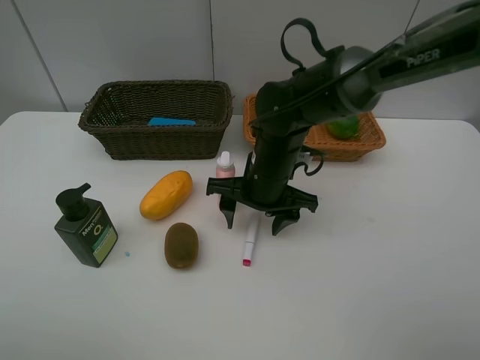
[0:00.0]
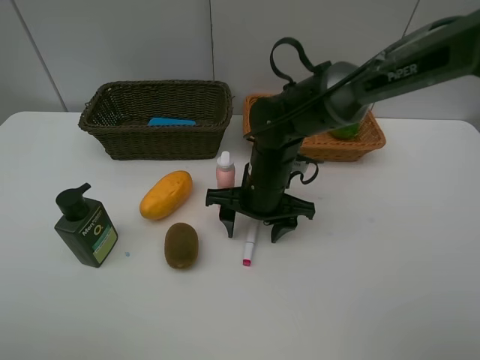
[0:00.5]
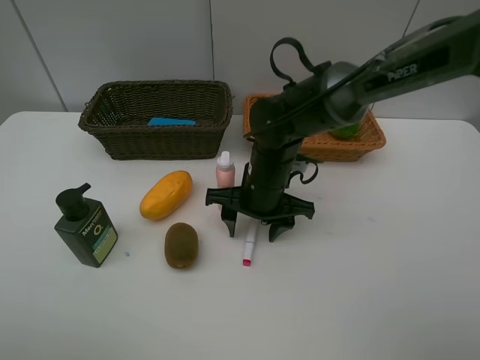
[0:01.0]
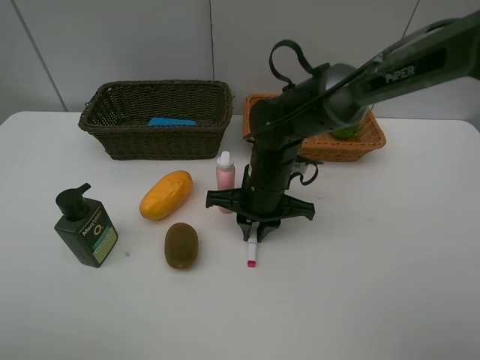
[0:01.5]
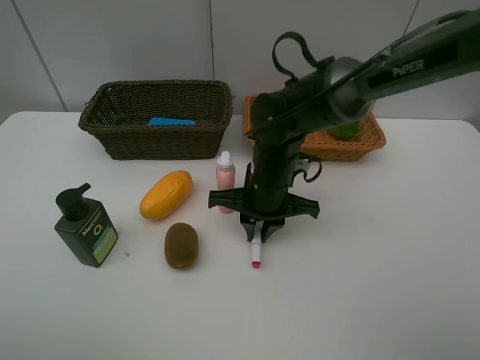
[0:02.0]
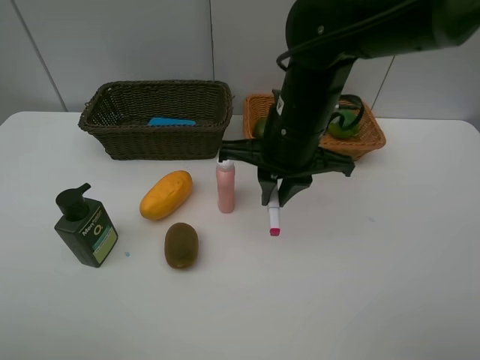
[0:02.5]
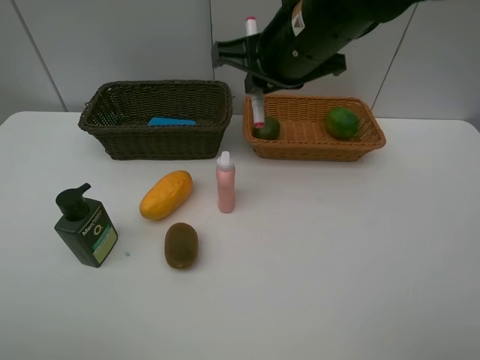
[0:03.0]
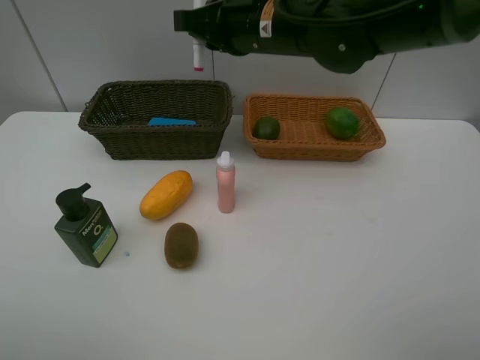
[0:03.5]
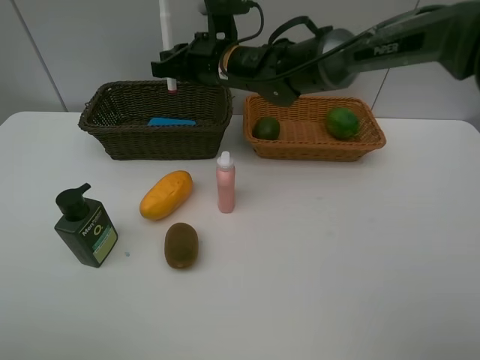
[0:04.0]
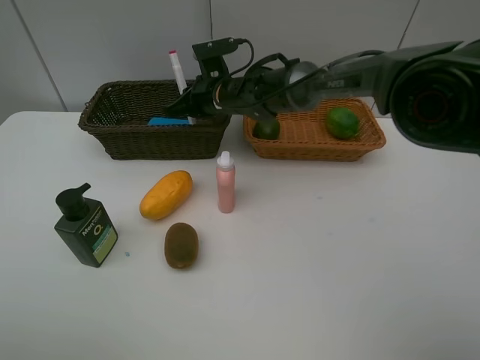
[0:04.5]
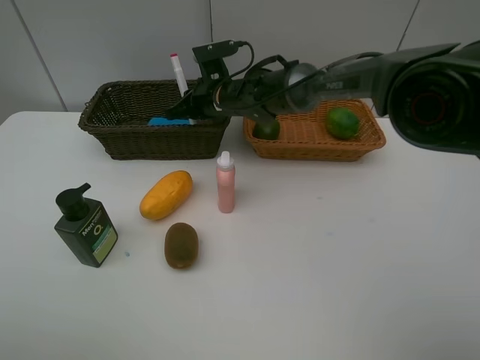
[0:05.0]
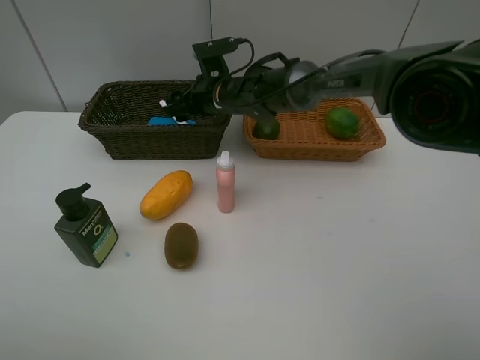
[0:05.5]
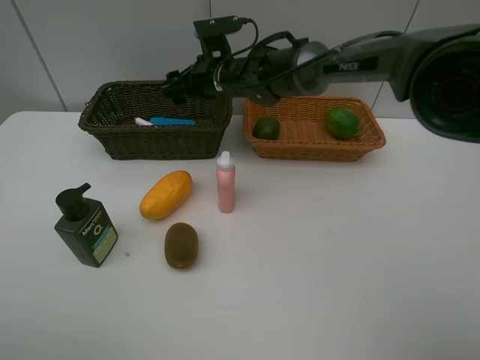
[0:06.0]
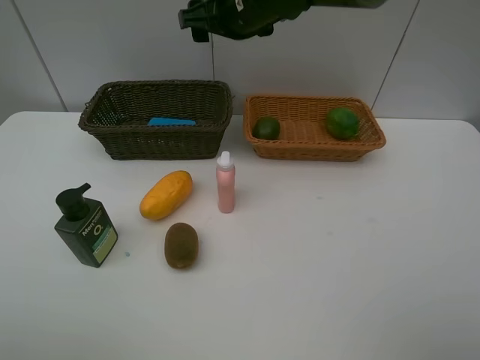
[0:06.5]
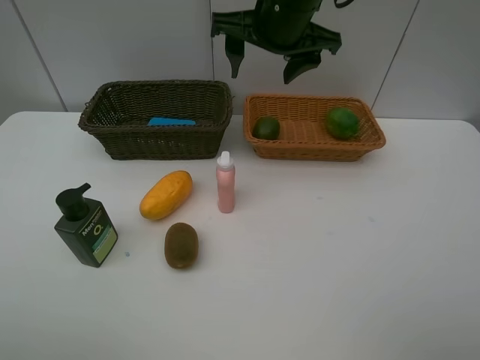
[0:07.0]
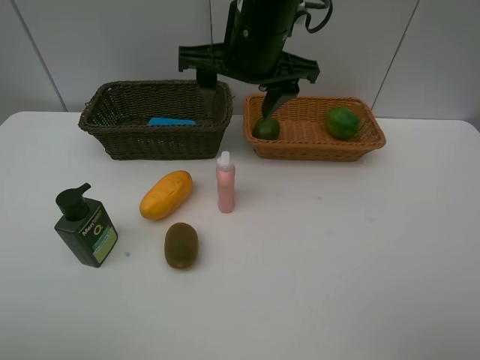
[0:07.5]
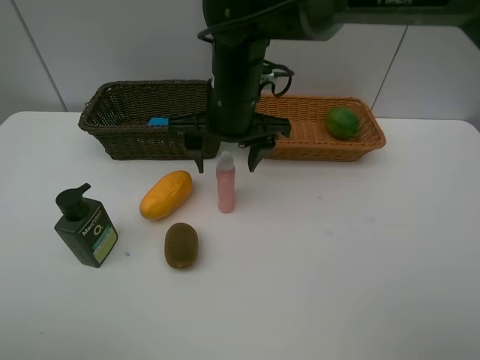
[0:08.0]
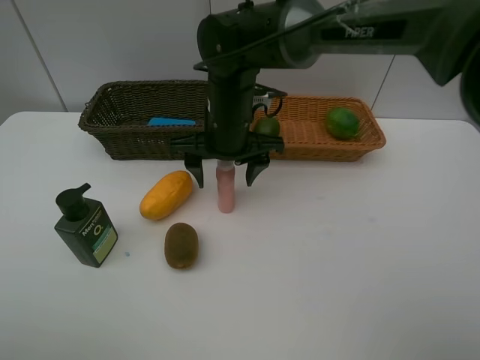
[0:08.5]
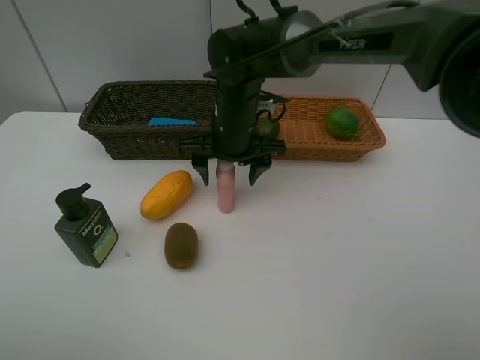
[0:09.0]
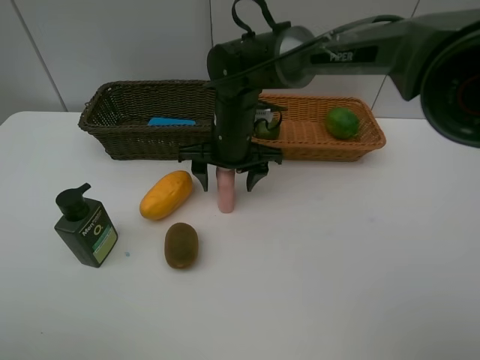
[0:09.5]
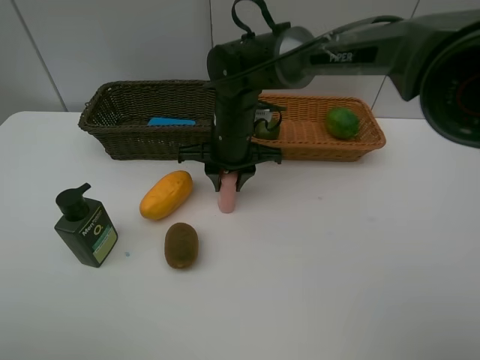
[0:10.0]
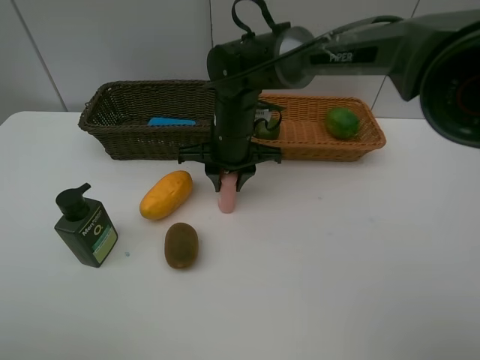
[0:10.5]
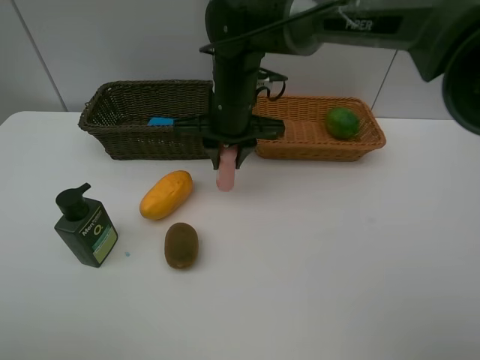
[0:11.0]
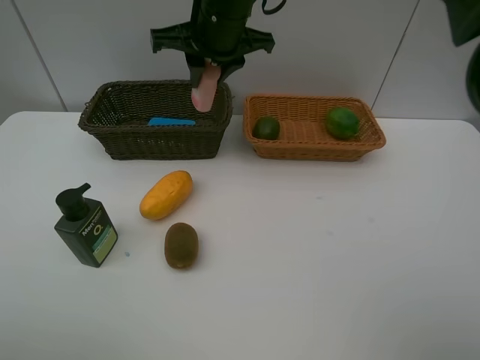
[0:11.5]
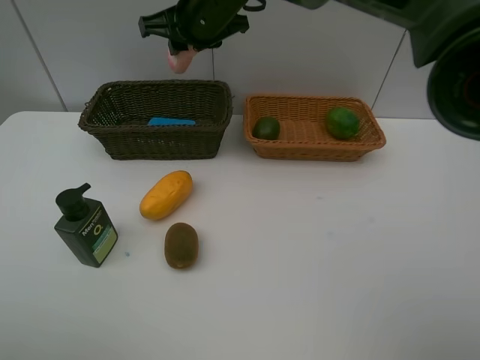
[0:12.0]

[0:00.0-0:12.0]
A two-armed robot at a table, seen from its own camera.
Task of the whole recording: Place multiple objects separately in different baskets.
Step, 0:00.0 to 0:02.0: Pick up the red marker with right gripper.
Step, 0:02.5 to 0:05.5: Place the red marker in the dark basket with right gripper.
Step, 0:06.0 to 0:11.0: Pick up the laundry detergent with right gripper.
0:00.0 to 0:02.0: The right gripper closes up.
0:02.0 to 0:04.0: The right gripper moves forward, upward and to the left, roughly 15 cm.
0:04.0 to 0:06.0: The right gripper opens its fingers.
0:06.0 to 0:08.0: The right gripper shifts about 10 cm backward, and travels upward and back again, about 15 cm each way.
0:08.0 to 0:10.0: The right gripper moves downward, roughly 5 cm, and closes.
0:10.0 to 0:12.0: The right gripper is displaced upward and forward by some 15 cm.

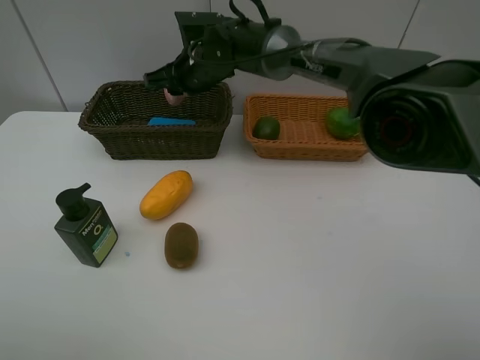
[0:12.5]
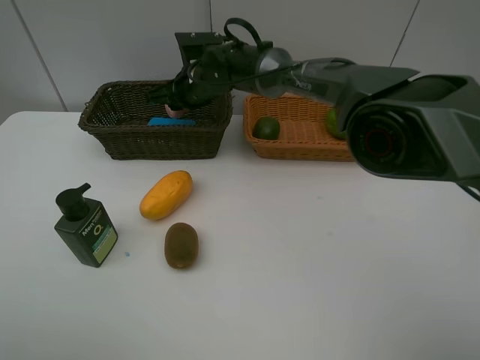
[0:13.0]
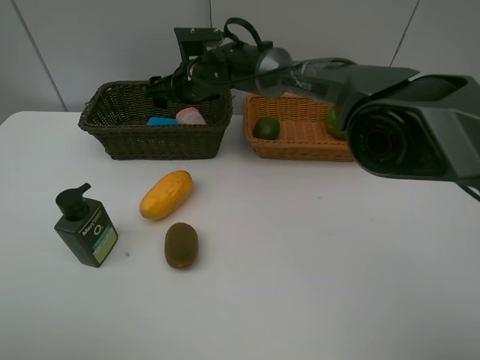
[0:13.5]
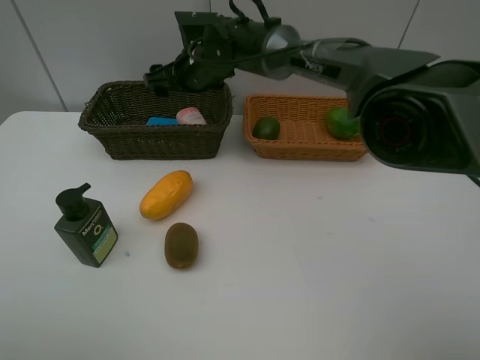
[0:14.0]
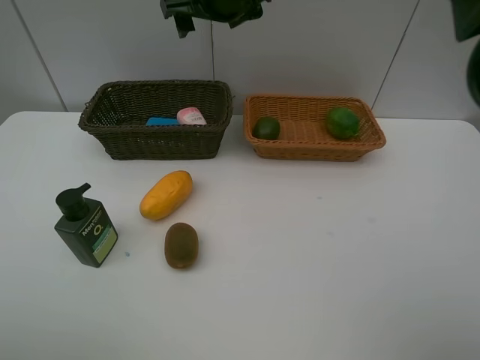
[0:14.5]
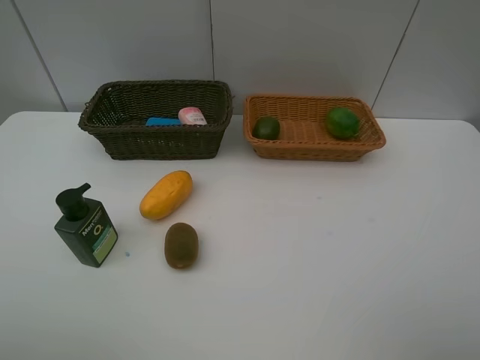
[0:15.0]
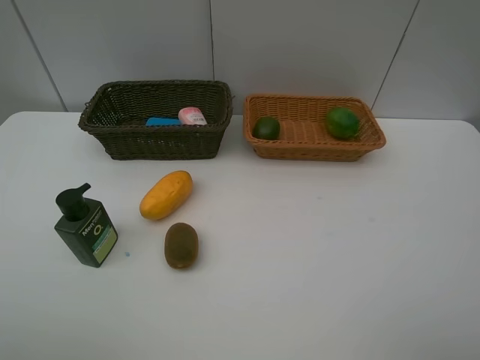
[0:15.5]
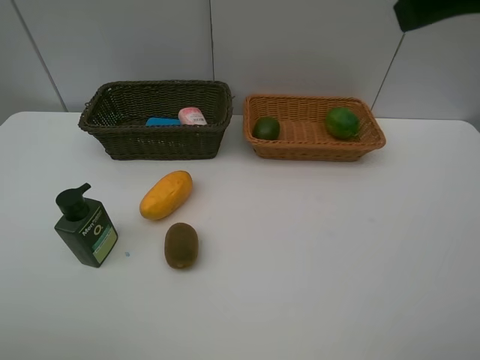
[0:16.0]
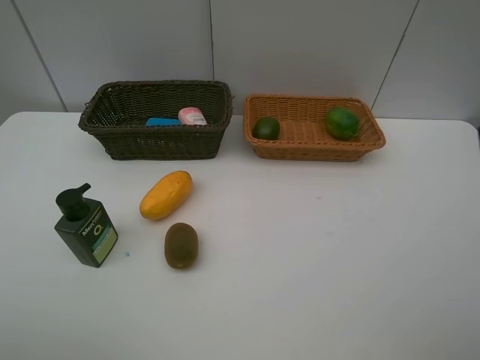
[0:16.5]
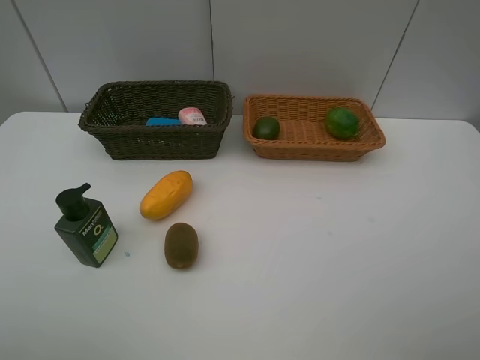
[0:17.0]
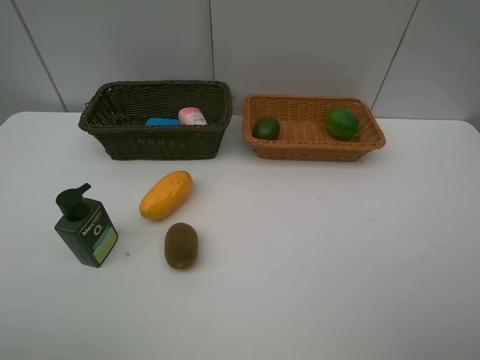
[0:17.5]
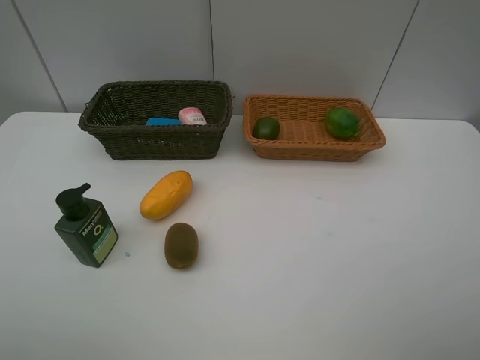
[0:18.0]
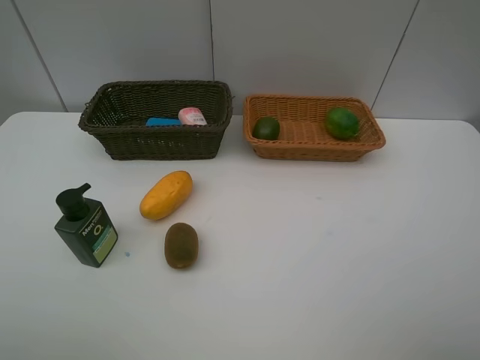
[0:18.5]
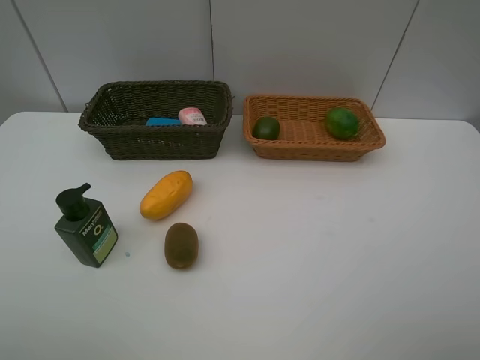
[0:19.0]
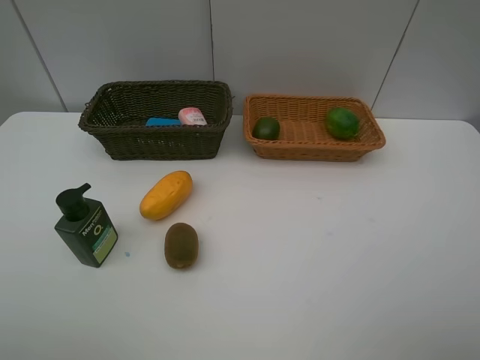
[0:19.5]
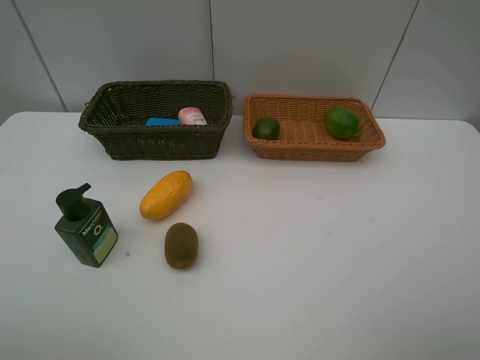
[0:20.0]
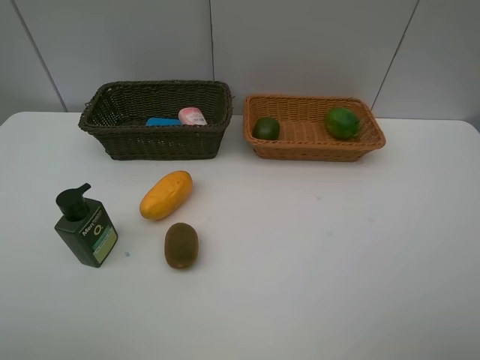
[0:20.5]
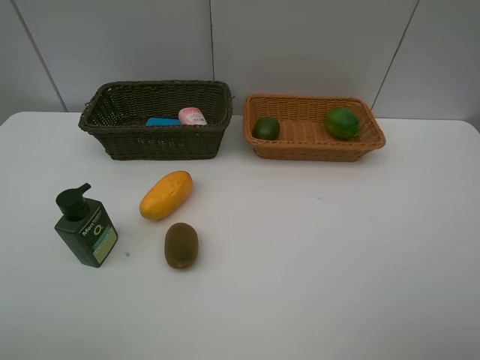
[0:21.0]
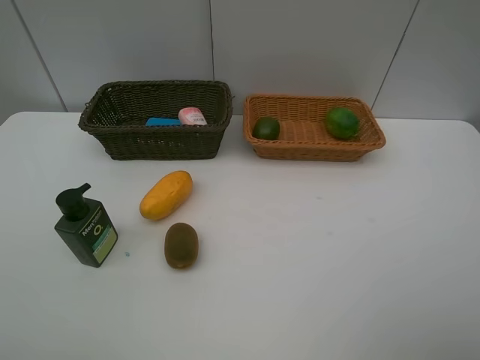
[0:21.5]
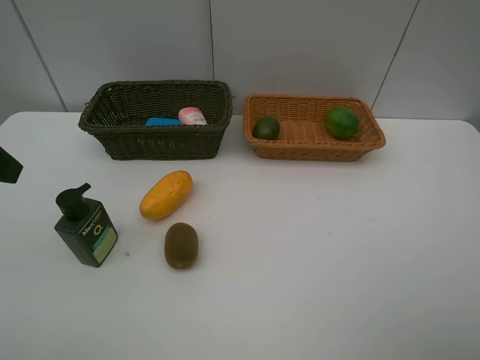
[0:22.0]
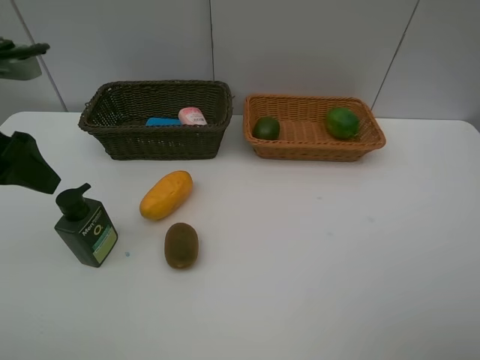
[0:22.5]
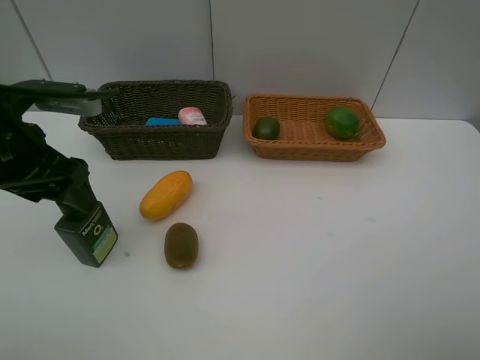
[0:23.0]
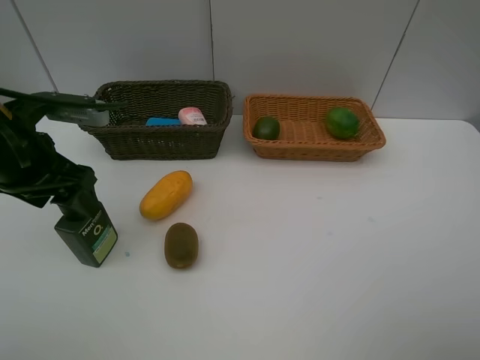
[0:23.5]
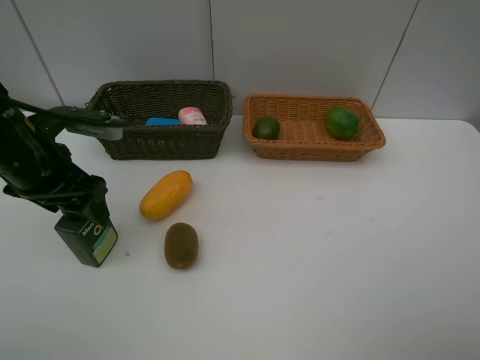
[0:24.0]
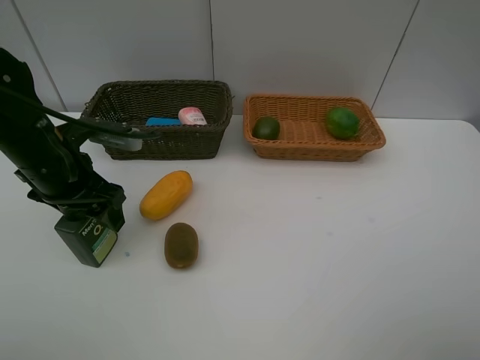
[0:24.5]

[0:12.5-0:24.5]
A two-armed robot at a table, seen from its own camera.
Task of the whole recording: Place multiple objects separately in different baskets.
Step, 0:12.5 to 0:14.0: Place the laundry detergent in the dark basket with right gripper.
0:12.5 to 0:14.5: The right gripper shifts some 15 cm upward, and opens up.
0:14.5 to 0:16.5: The right gripper shifts roughly 40 cm backward and to the right.
0:20.5 to 0:22.5: The left gripper goes approximately 20 cm forward.
0:22.5 to 0:24.5: The left gripper goes about 10 cm downward and forward.

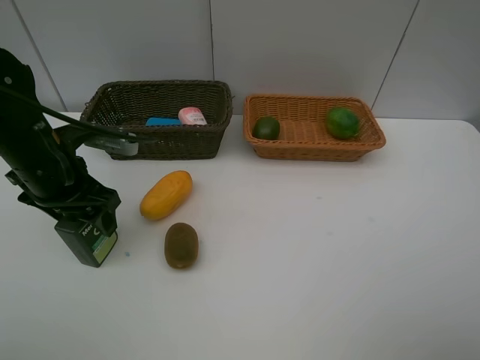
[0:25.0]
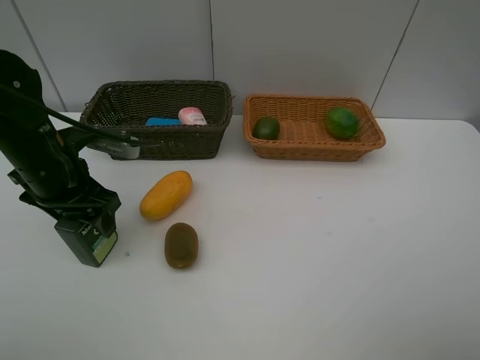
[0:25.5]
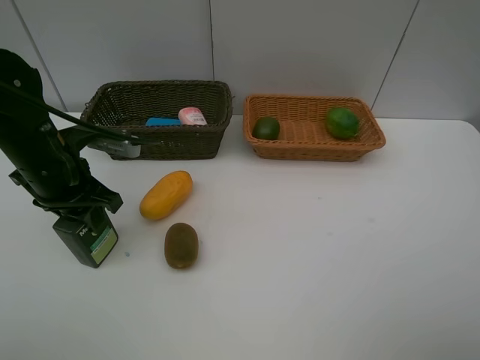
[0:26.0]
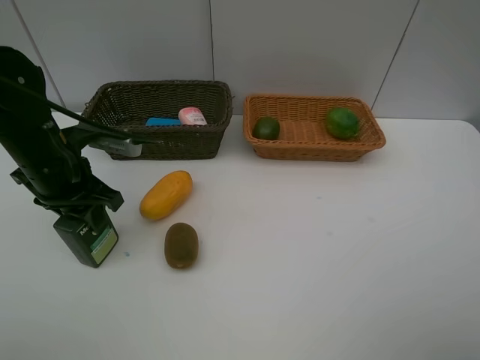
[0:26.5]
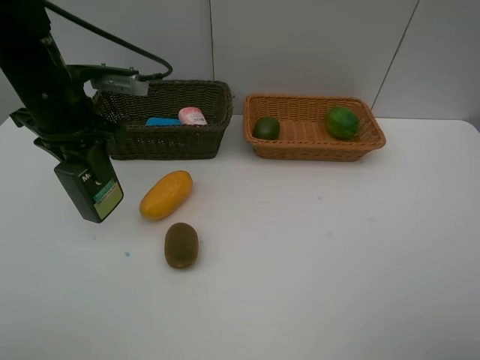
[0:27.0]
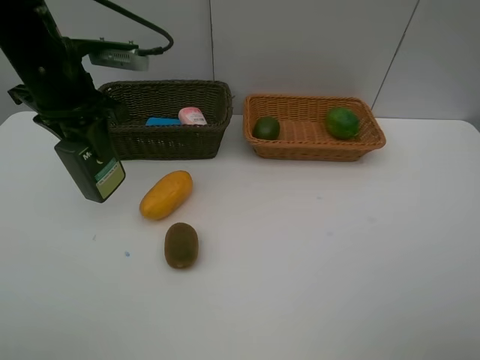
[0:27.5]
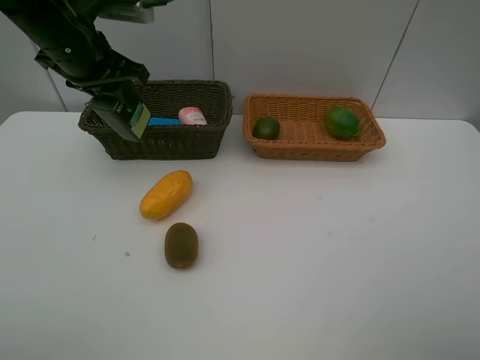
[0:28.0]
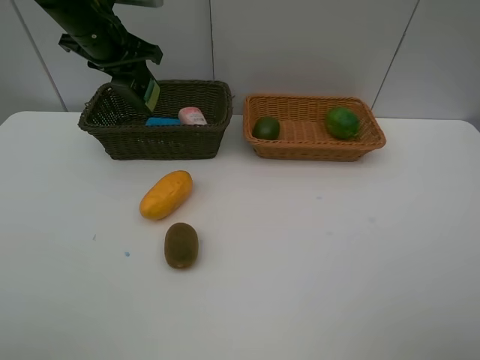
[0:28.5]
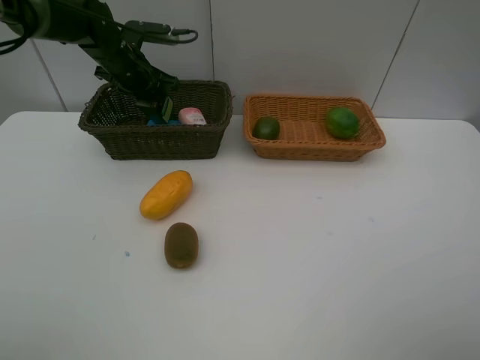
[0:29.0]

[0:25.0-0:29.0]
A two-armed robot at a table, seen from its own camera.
Task of the whole recording: Place multiple objects separately in different baskets.
0:25.0 to 0:27.0: The left gripper heads upward, covering roughly 5 cm, and closes its fingers.
0:27.0 to 0:29.0: The left gripper is displaced forward by some 20 cm.
